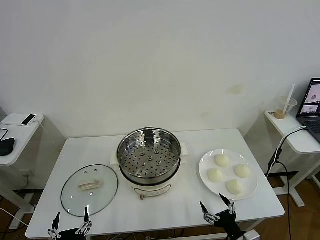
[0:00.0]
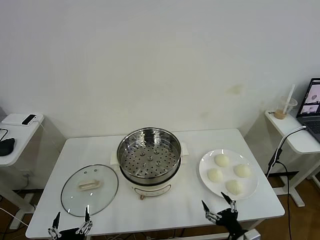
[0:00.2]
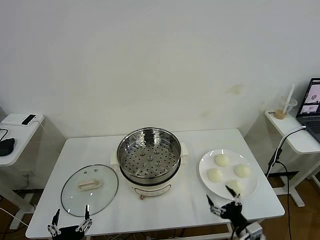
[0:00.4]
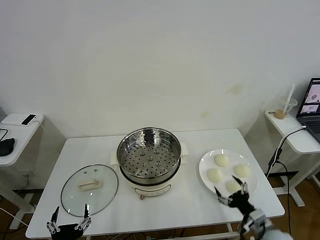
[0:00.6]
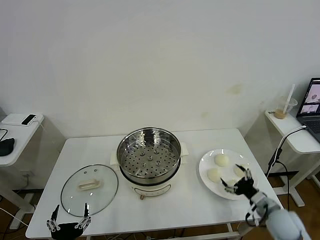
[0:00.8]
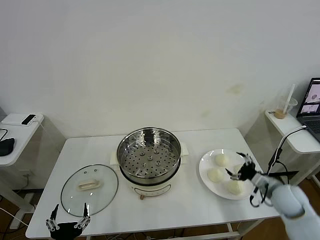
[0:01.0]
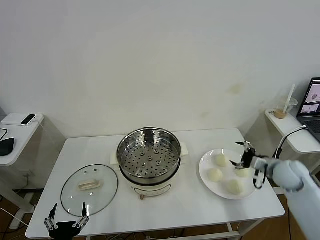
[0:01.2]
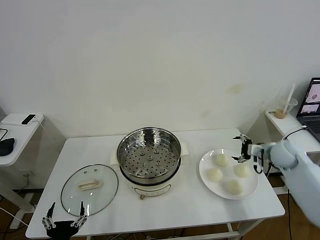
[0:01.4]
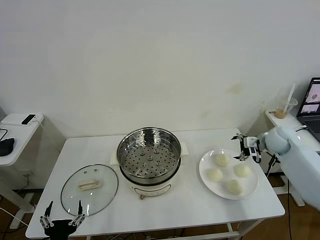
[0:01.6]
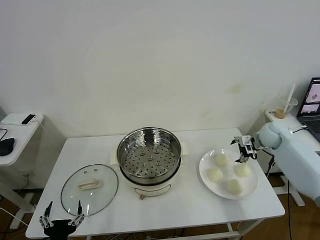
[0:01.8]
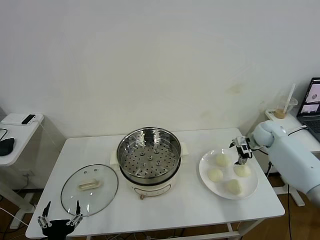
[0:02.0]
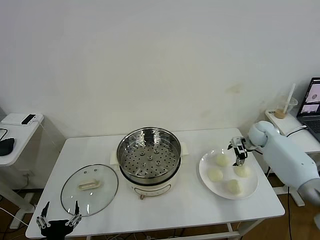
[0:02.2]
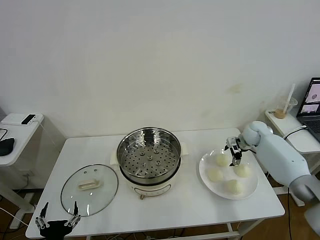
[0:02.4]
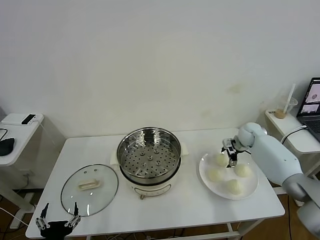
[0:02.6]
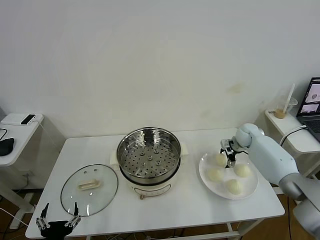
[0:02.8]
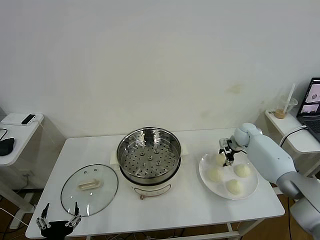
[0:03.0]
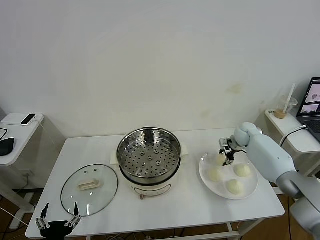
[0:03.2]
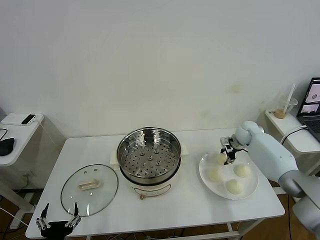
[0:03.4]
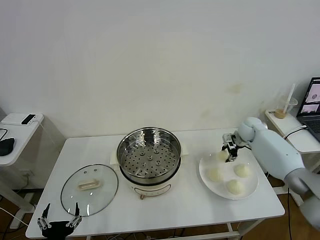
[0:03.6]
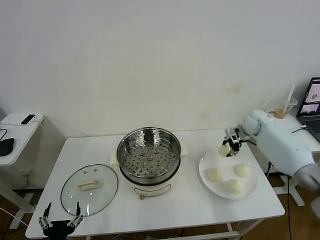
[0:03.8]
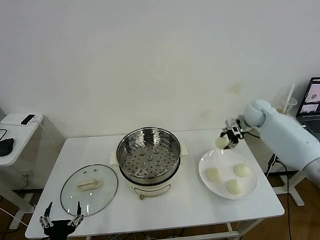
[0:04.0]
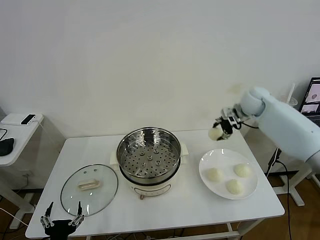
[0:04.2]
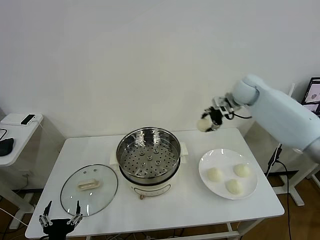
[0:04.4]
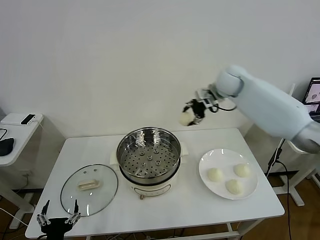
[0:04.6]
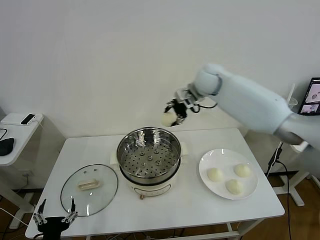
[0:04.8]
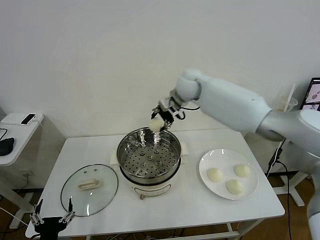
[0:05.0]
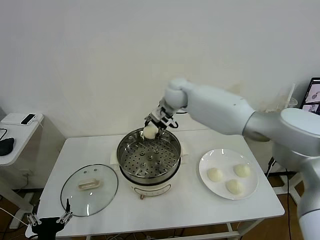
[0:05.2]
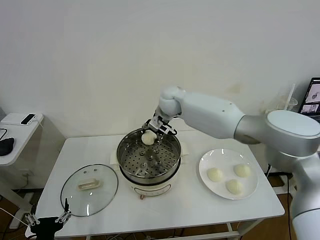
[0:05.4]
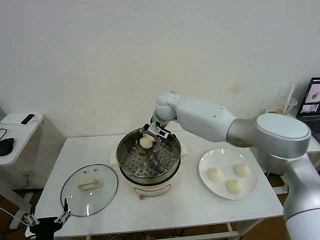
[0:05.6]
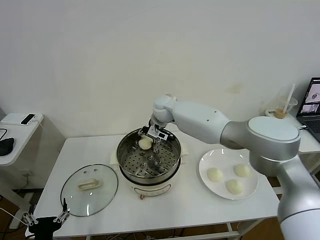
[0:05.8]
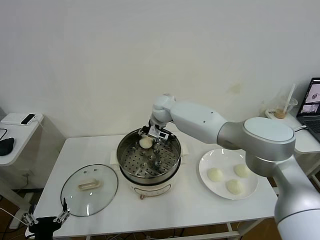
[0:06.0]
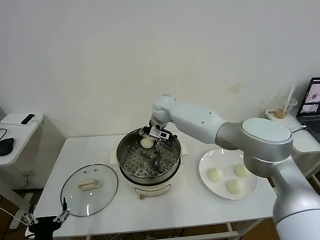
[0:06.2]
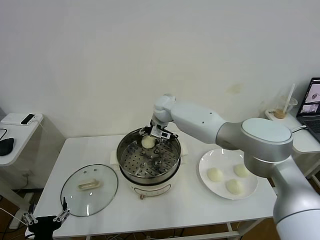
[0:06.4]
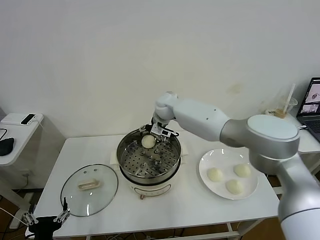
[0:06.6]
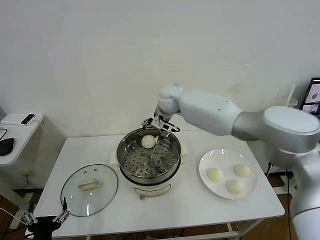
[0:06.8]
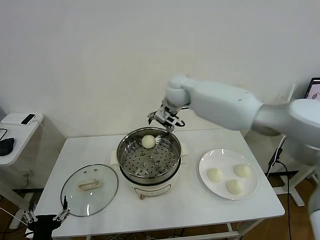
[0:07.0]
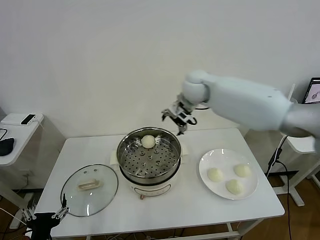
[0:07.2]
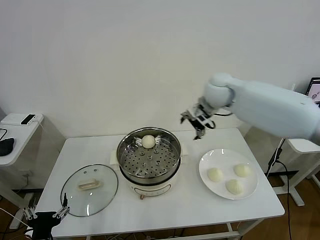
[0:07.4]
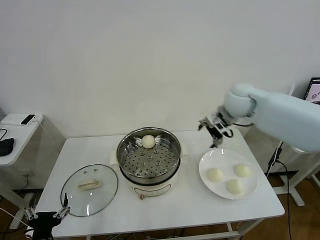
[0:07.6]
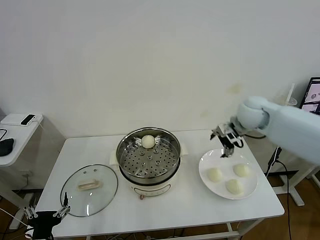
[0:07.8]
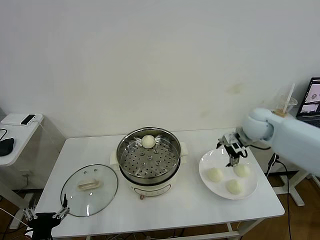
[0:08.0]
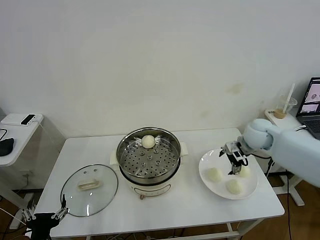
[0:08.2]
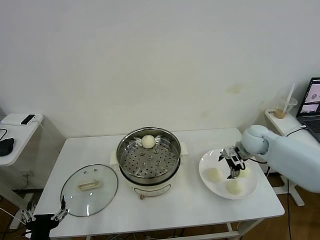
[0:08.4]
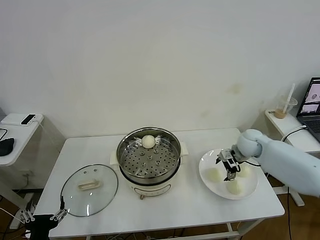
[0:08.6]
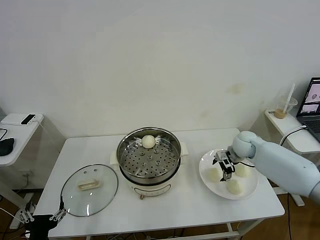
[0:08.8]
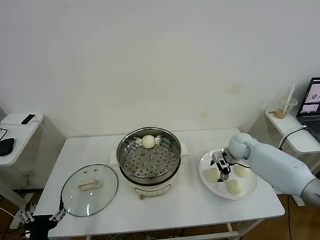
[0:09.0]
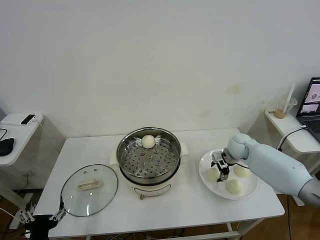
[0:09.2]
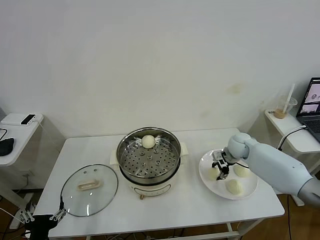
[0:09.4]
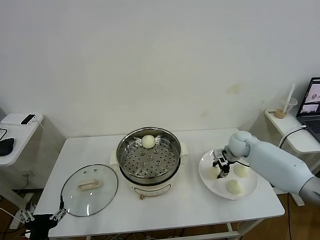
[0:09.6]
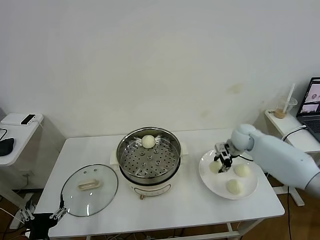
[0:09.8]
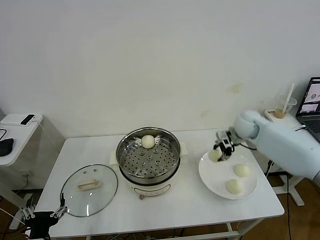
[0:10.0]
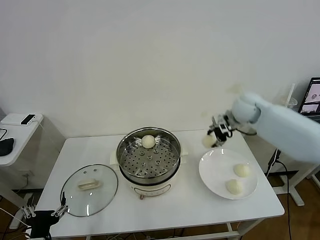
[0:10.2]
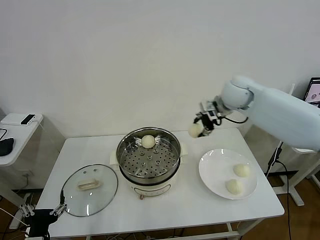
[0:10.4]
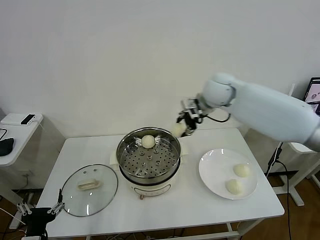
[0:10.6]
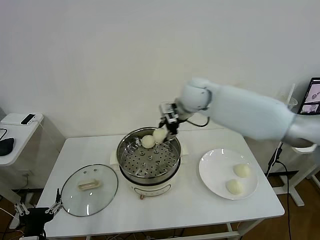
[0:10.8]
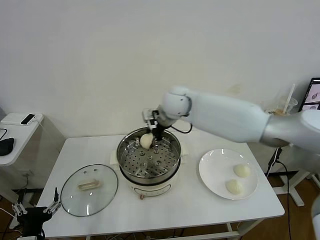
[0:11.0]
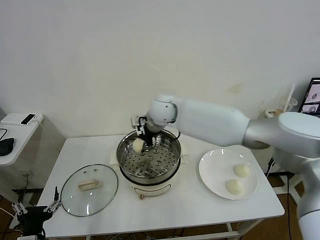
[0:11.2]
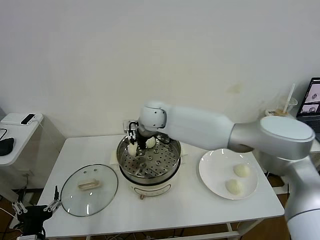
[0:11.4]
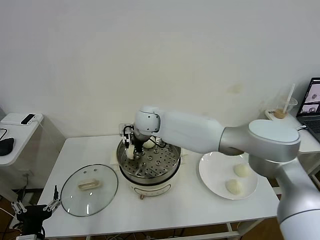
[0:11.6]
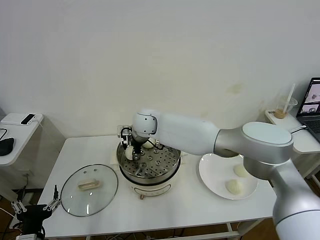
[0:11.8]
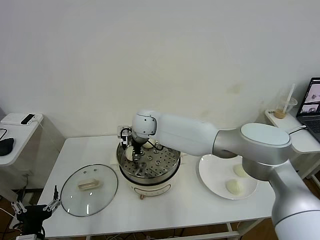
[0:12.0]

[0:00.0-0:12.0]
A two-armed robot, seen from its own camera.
Task of the whole recording: take steamed baozi put them in steamer then cover it.
Step, 0:00.0 to 0:03.0: Grasp the baozi in the plate with right gripper.
Step, 0:03.2 to 0:06.6: Place the baozi on the steamer with right gripper.
Step, 0:06.8 to 0:09.6: Grasp the baozi in the plate with right gripper.
0:01.6 to 0:03.0: The right gripper travels downward, forward and to the left by approximately 10 cm, and closes up.
0:03.0 to 0:04.4: The right gripper travels upward and to the left by roughly 25 cm.
0:04.4 to 0:06.0: The right gripper goes approximately 25 cm to the left and downward.
0:06.0 to 0:07.6: The right gripper moves to the right, about 25 cm, and opens.
0:07.6 to 0:09.0: The right gripper heads downward, covering about 20 cm.
0:09.0 to 0:10.4: The right gripper moves upward and to the left, about 25 cm, and closes.
0:10.4 to 0:12.0: The right gripper travels to the left and downward by approximately 30 cm, and opens its fingers.

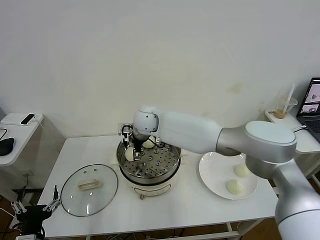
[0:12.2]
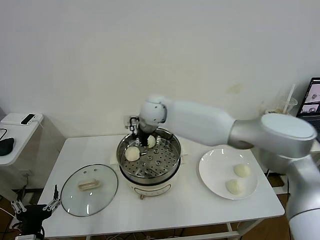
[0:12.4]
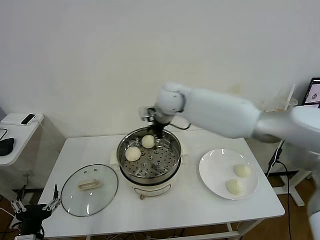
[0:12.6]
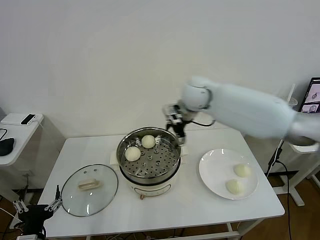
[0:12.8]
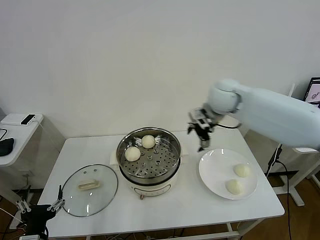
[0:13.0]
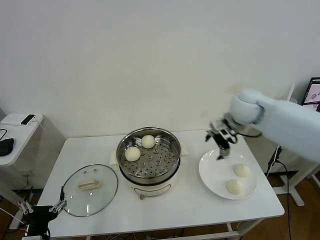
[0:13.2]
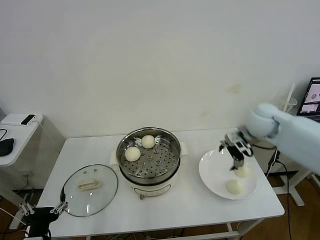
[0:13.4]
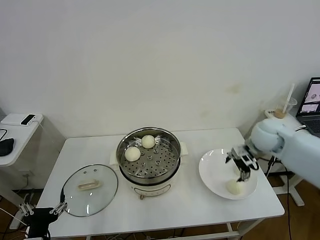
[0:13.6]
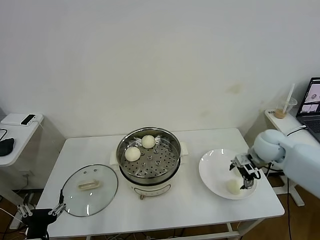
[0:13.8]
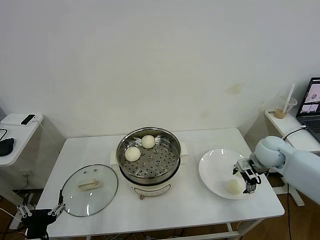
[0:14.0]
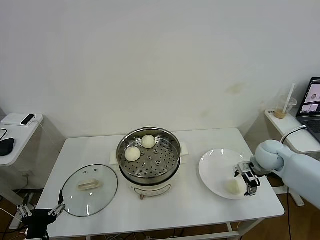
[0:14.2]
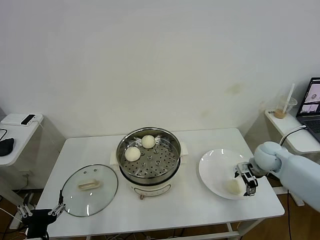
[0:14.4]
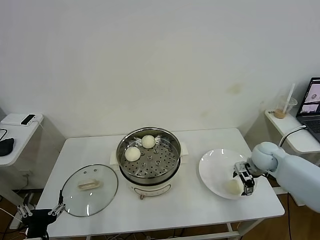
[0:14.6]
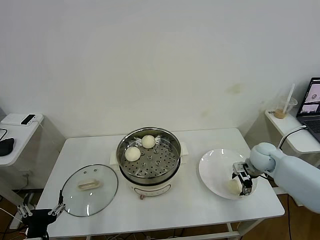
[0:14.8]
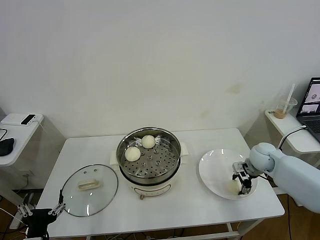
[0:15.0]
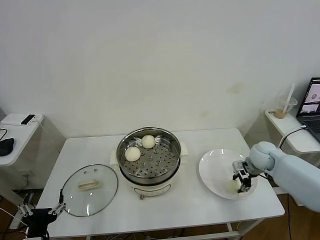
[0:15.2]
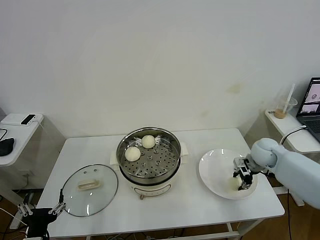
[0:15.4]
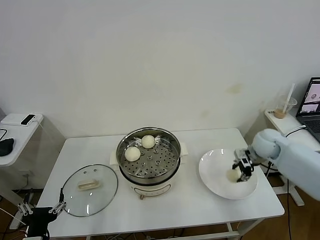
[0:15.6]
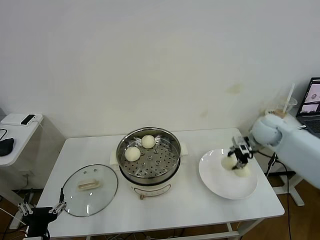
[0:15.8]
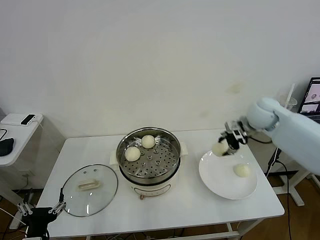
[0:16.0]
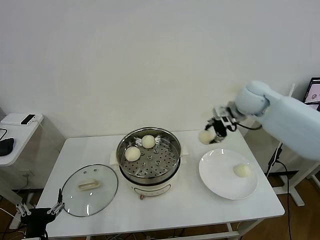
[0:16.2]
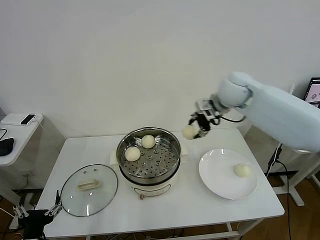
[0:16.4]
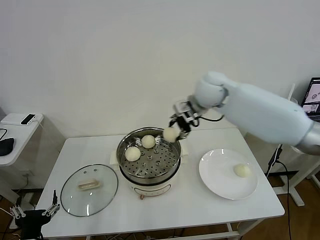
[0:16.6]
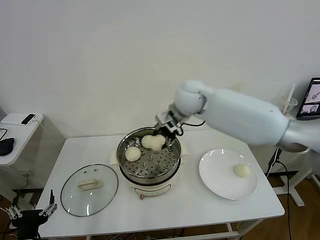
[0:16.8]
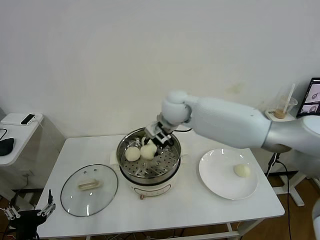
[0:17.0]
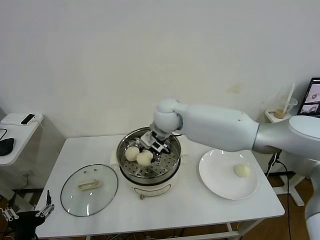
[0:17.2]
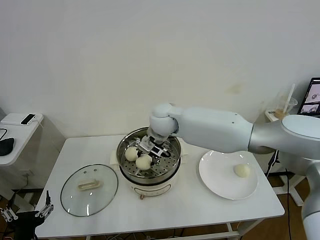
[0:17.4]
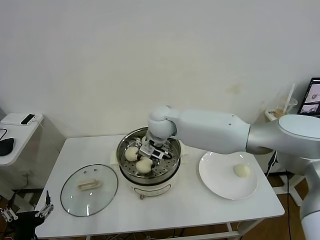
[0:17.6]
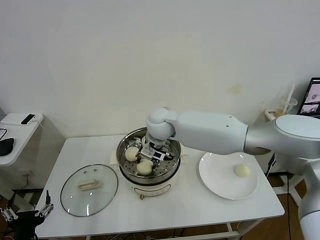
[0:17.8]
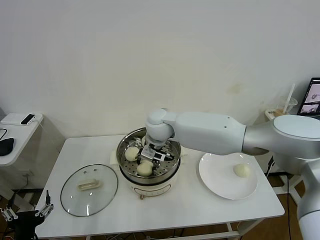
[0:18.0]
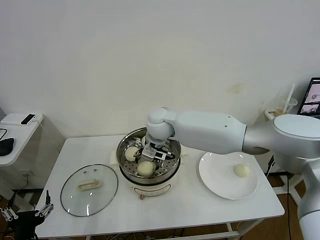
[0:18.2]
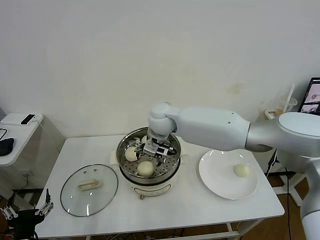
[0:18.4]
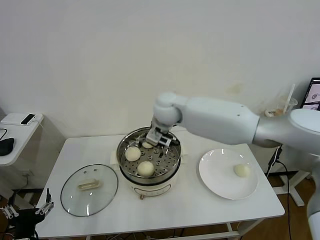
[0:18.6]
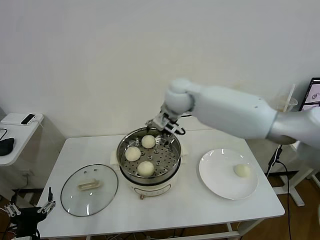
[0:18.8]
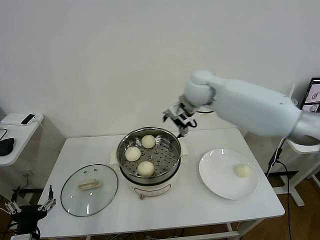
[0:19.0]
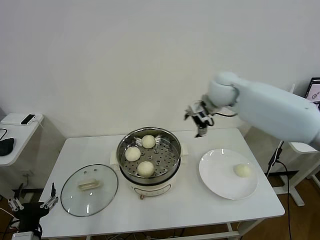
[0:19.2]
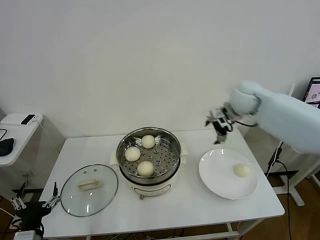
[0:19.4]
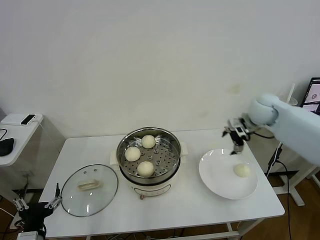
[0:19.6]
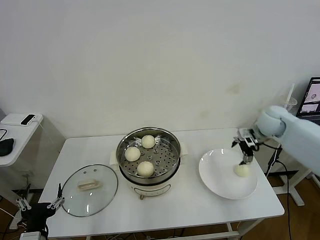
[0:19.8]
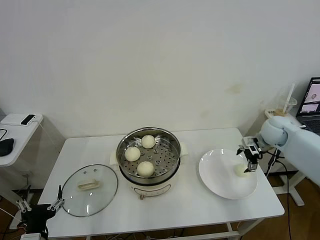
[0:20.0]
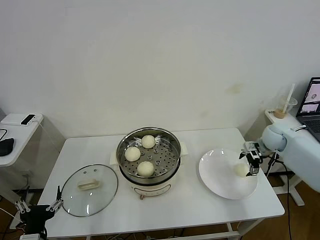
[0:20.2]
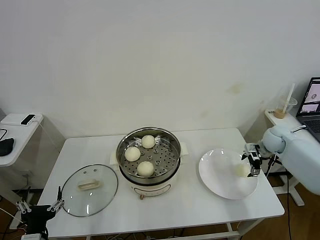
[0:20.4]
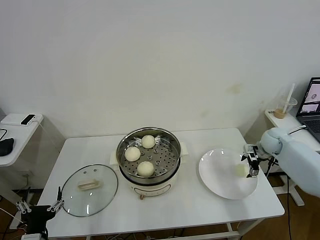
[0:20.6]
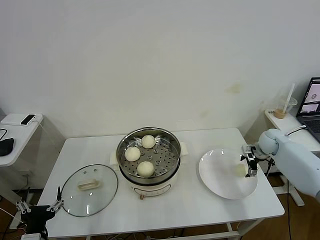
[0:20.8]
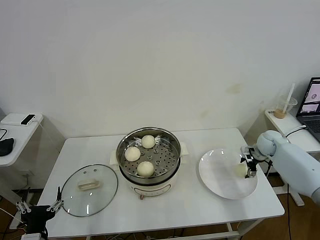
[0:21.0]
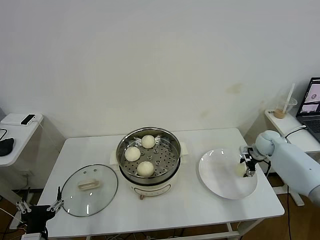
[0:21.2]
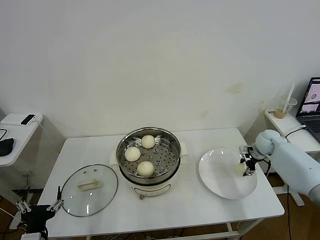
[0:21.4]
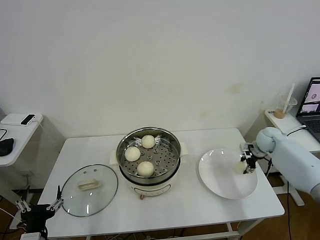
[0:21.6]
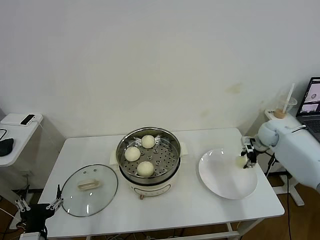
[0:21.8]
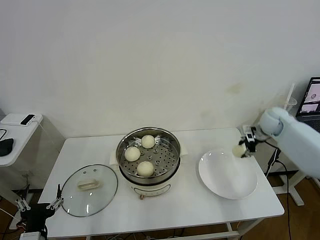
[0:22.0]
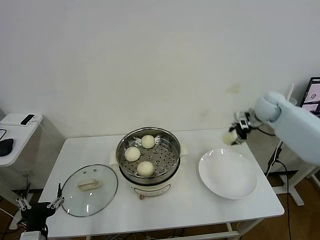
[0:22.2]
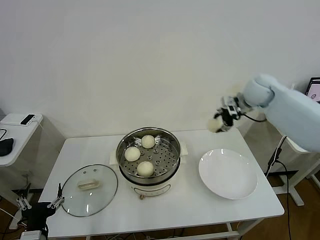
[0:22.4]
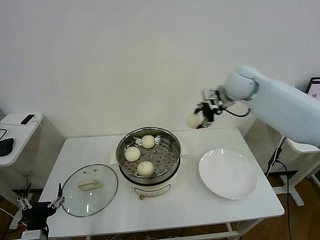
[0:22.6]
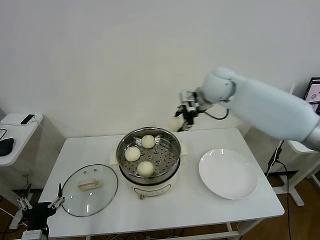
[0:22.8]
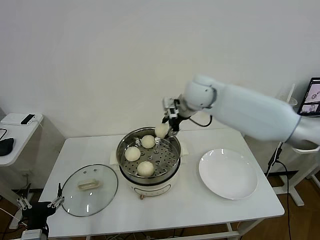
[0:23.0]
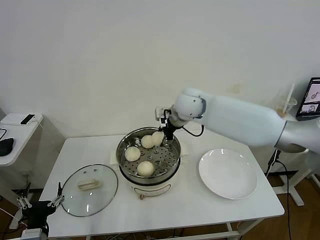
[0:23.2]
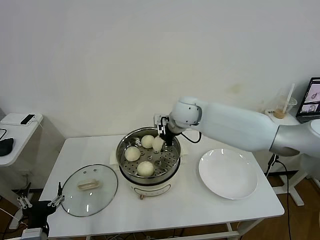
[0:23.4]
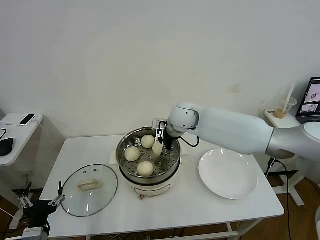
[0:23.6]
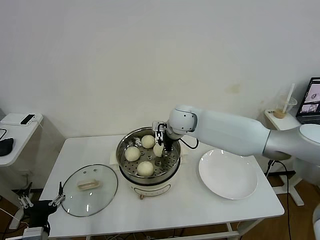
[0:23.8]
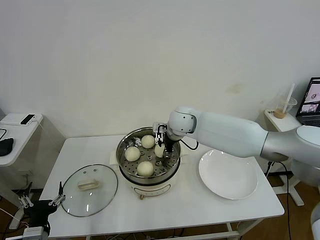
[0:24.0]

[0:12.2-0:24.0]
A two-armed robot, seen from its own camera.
Task of the whole recording: take steamed baozi put them in steamer then cover it.
Step, 0:12.6 to 0:15.2: Grasp the baozi in the plate with right gripper.
Step, 0:15.4 to 0:18.4: Place the baozi on the steamer with right gripper.
Step, 0:18.6 to 0:21.4: Grasp the baozi in the plate with right gripper.
0:12.2 to 0:13.6: The right gripper moves to the right, some 40 cm.
0:13.6 to 0:15.2: The right gripper travels downward by some 10 cm, and closes up.
0:15.2 to 0:16.6: The right gripper shifts roughly 35 cm to the left and upward.
0:16.6 to 0:18.2: The right gripper shifts some 15 cm to the left and downward, and opens.
0:18.2 to 0:19.6: The right gripper shifts some 35 cm to the right.
0:19.6 to 0:21.0: The right gripper shifts about 20 cm downward and to the right.
0:21.0 to 0:22.6: The right gripper is displaced upward and to the left by roughly 35 cm, and closes.
0:22.6 to 0:24.0: The right gripper heads to the left and downward, covering approximately 20 cm.
